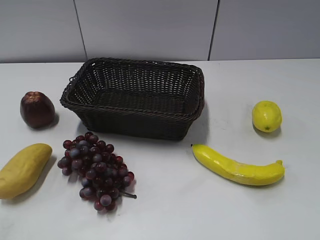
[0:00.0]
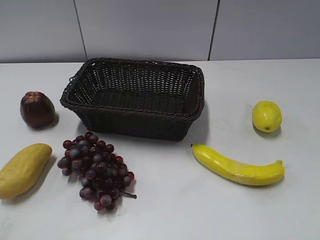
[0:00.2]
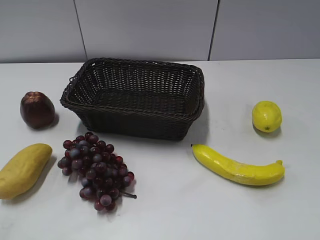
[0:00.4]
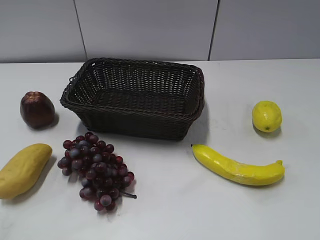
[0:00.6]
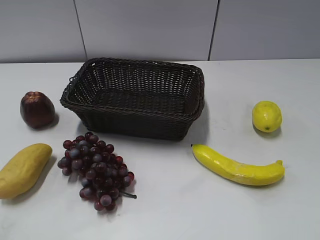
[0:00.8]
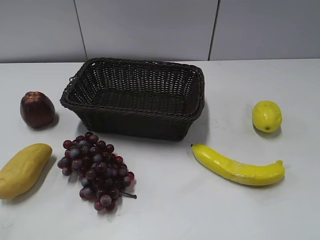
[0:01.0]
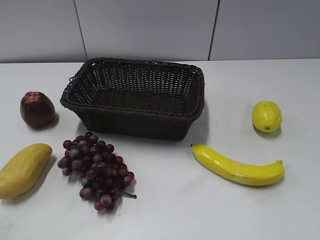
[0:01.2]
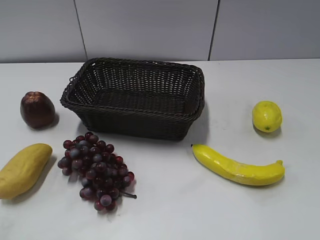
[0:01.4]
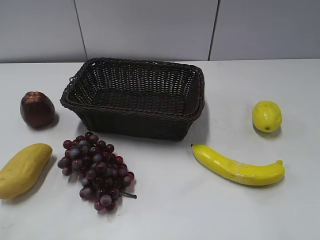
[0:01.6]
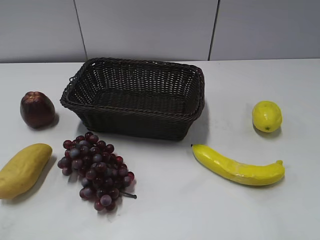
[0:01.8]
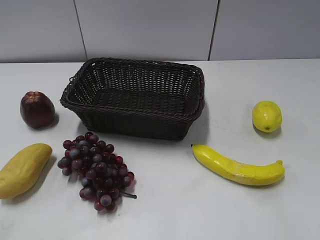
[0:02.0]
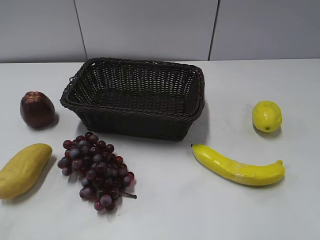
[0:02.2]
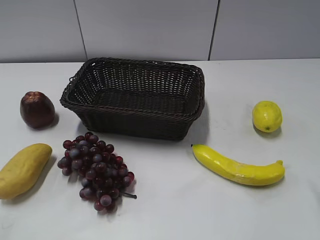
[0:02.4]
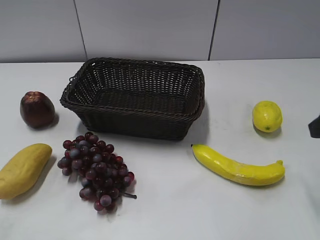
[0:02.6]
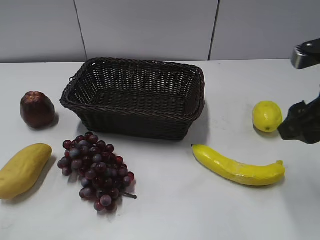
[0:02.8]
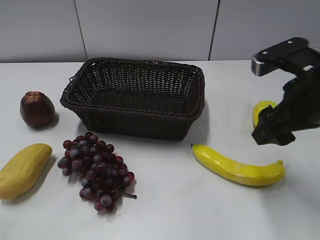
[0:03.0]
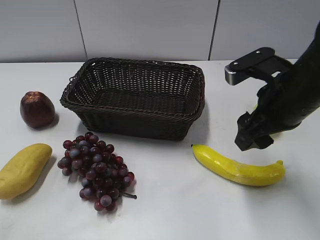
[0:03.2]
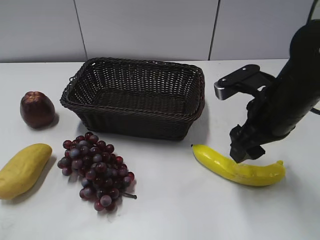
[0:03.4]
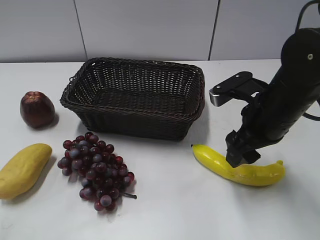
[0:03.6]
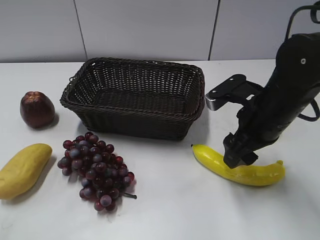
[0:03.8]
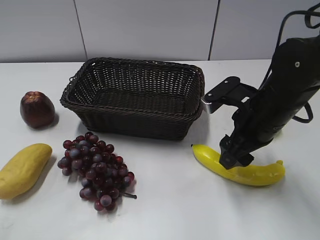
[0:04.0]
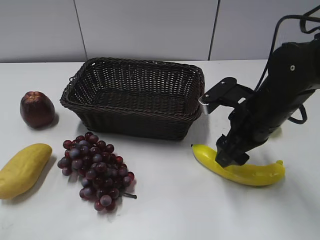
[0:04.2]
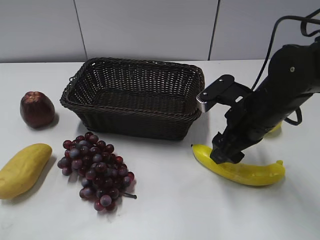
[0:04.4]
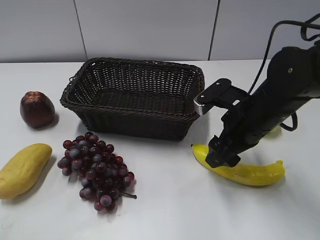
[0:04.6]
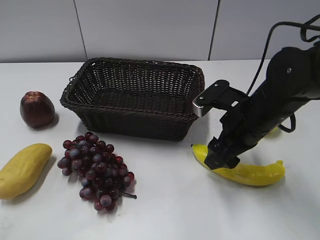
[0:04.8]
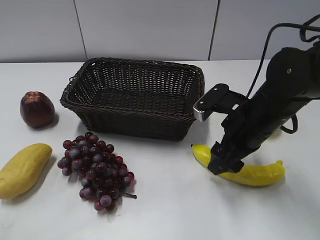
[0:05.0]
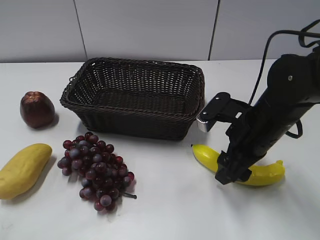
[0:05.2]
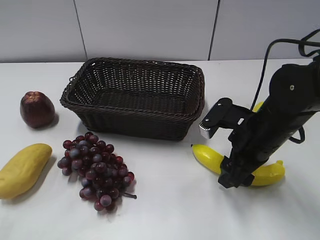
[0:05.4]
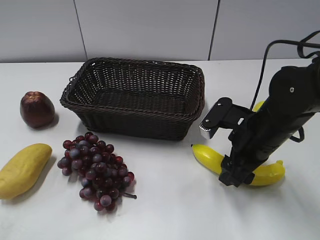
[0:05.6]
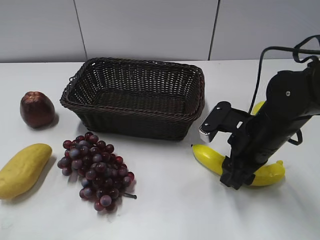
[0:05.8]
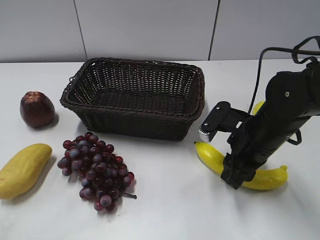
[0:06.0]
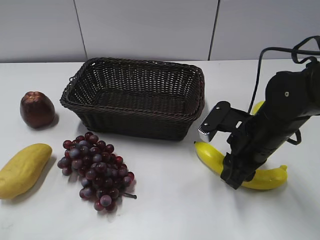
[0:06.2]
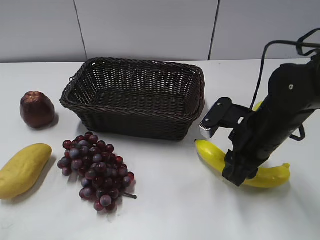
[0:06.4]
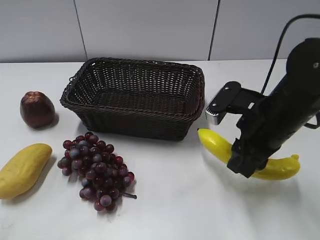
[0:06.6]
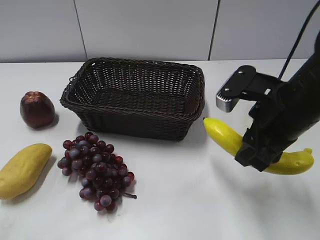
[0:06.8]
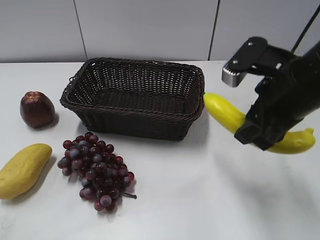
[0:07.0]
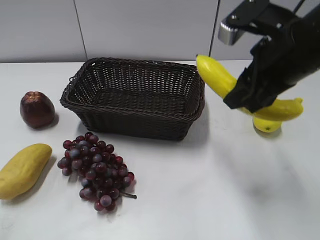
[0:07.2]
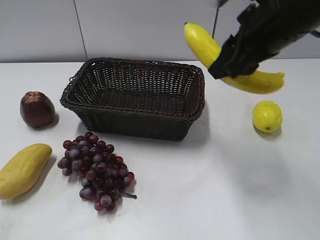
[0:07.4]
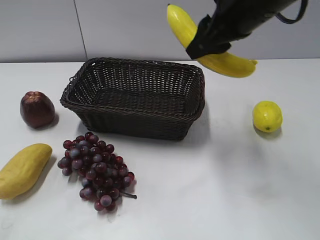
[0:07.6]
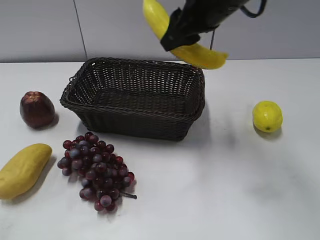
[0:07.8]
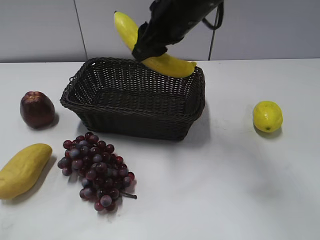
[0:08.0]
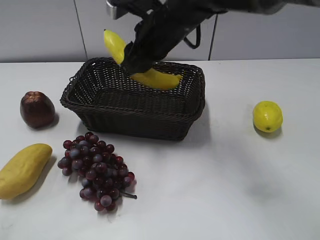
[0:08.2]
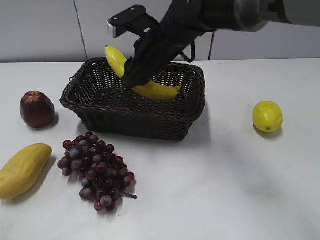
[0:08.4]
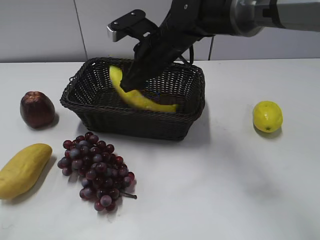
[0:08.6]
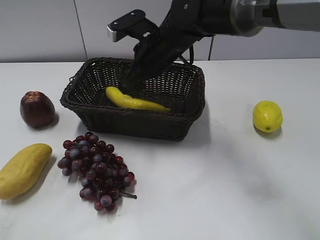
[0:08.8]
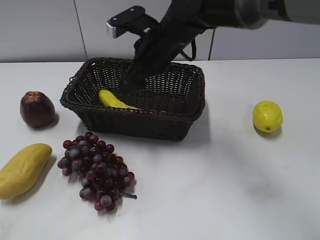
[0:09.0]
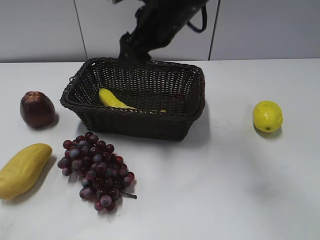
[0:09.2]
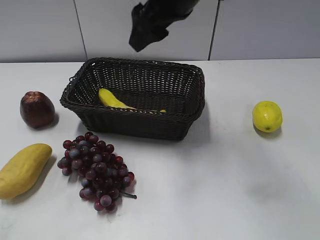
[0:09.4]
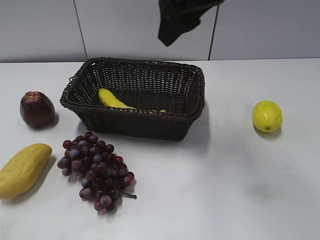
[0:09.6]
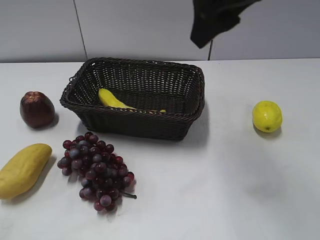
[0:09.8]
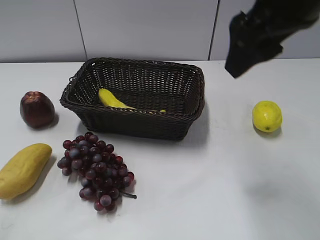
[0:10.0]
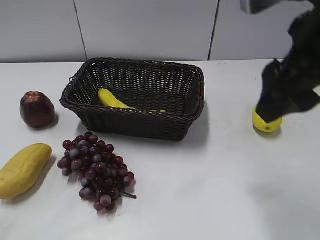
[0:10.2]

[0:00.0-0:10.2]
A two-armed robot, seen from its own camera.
Step, 0:02.6 to 0:05.8: Grasp the banana with right gripper.
Step, 0:06.2 to 0:08.6: Place the banana in the basket with right gripper.
0:01.4 to 0:03.0: The right gripper shifts about 25 cm forward and to the left.
0:03.0 to 0:04.4: The right gripper goes roughly 10 cm downward.
0:04.4 to 0:05.8: The right gripper closes up.
0:05.8 to 0:07.2: The right gripper moves upward, approximately 15 cm, and closes up.
0:07.2 to 0:08.8: The right gripper travels to the left, forward and downward by some 20 cm, and opens its fingers.
0:08.8 to 0:10.2: The right gripper travels backward, to the right and upward by approximately 30 cm.

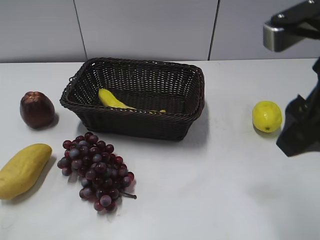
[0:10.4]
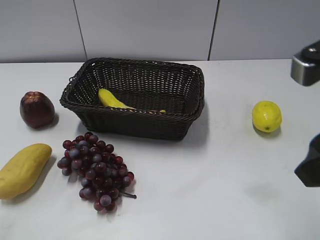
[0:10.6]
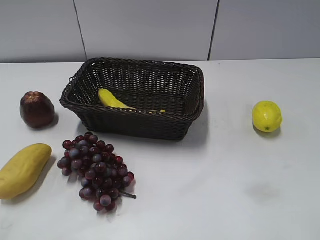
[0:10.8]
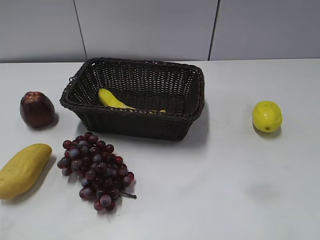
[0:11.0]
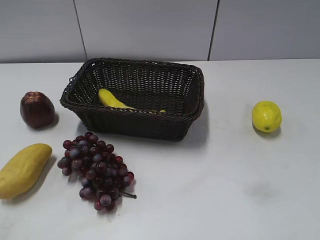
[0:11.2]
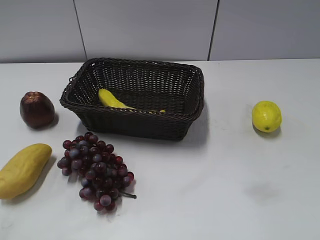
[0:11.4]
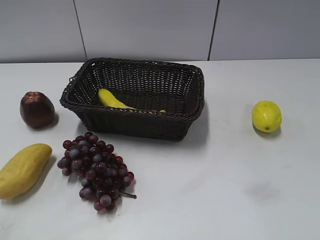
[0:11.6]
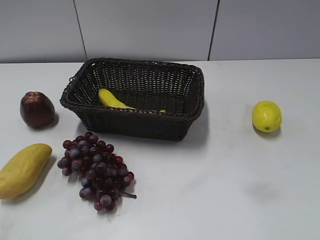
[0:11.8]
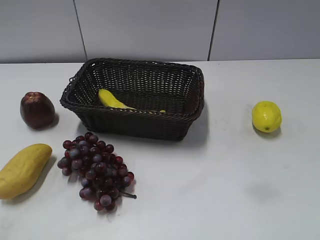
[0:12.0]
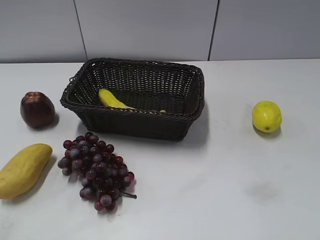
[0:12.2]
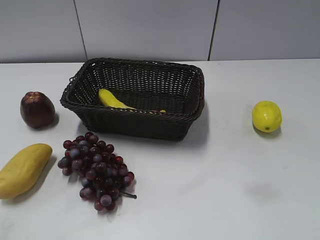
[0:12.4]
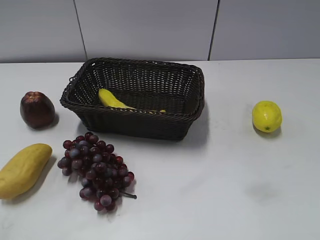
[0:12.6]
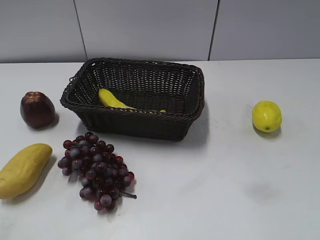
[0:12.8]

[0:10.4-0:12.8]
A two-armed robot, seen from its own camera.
0:10.4 to 0:11.6: The right gripper heads backward and to the right, covering approximately 20 cm.
